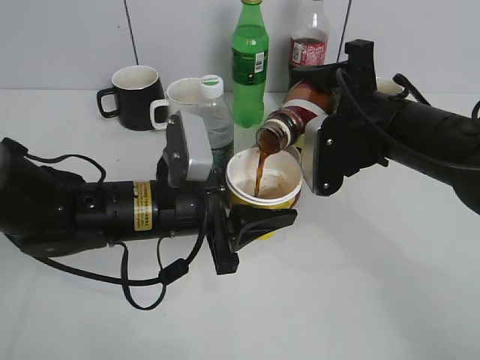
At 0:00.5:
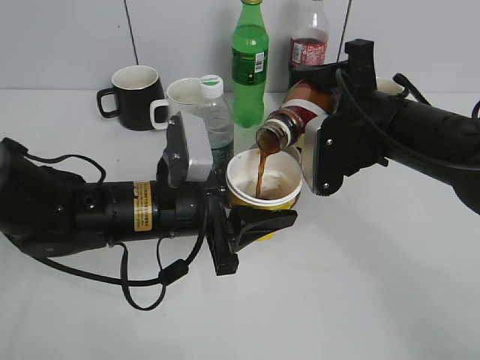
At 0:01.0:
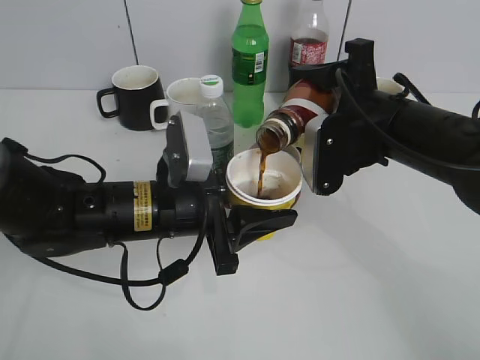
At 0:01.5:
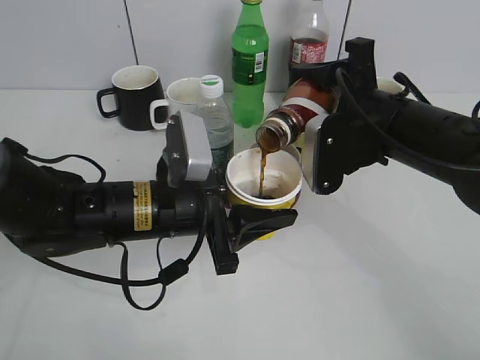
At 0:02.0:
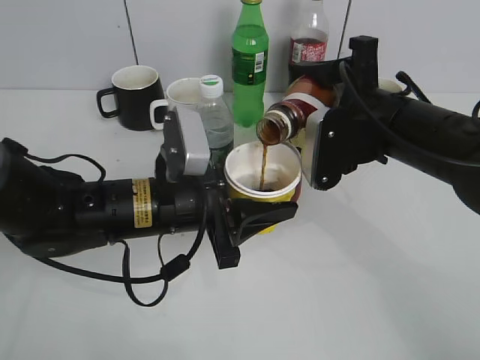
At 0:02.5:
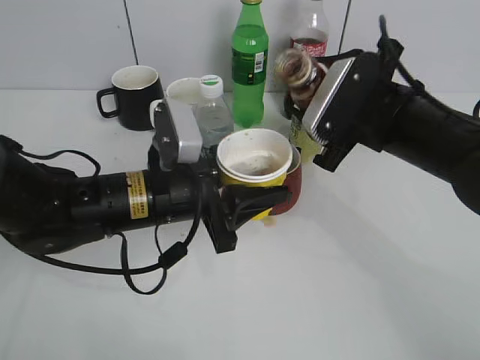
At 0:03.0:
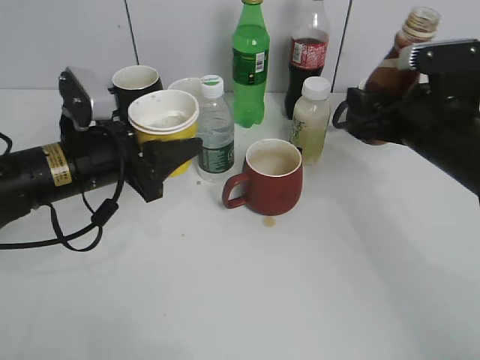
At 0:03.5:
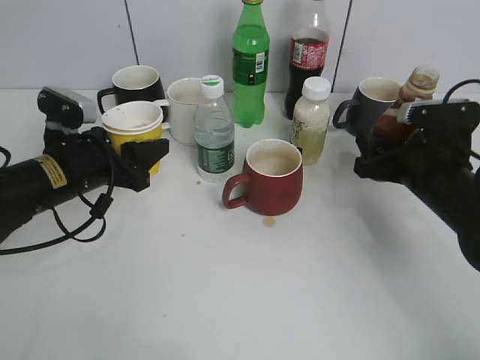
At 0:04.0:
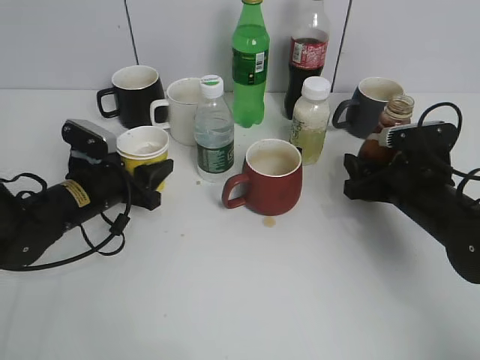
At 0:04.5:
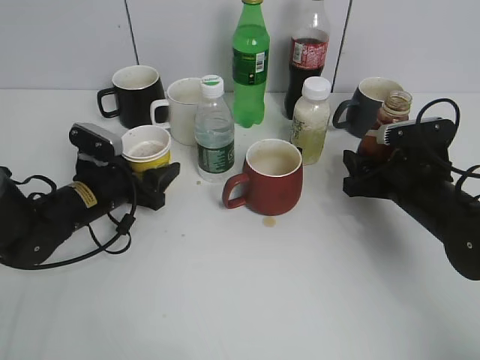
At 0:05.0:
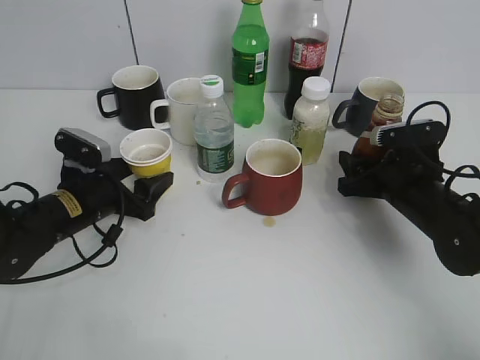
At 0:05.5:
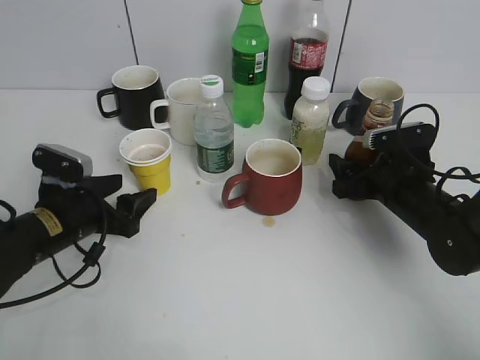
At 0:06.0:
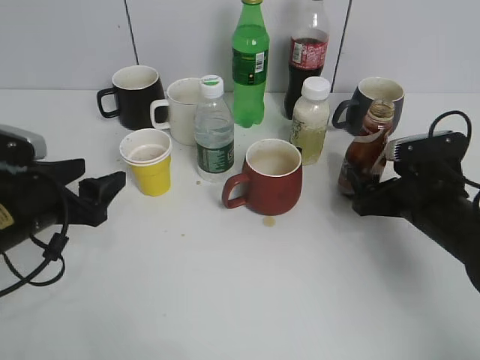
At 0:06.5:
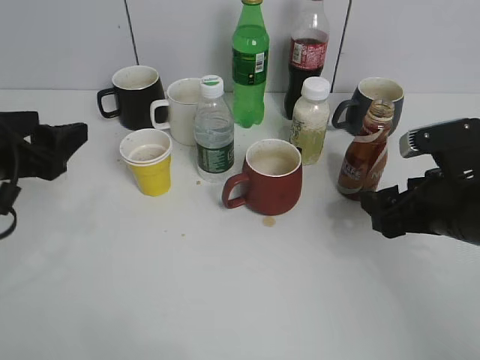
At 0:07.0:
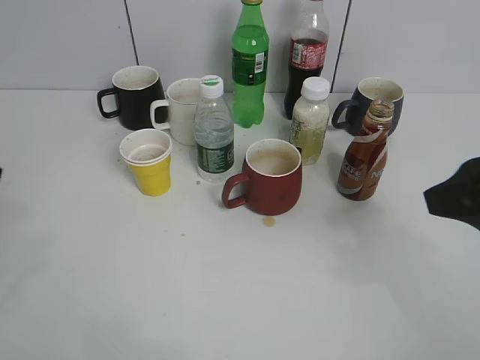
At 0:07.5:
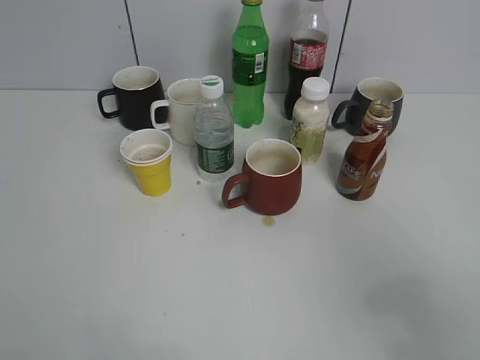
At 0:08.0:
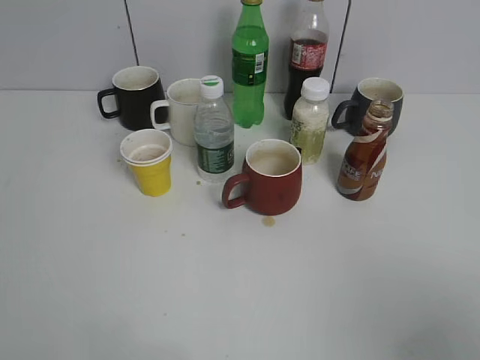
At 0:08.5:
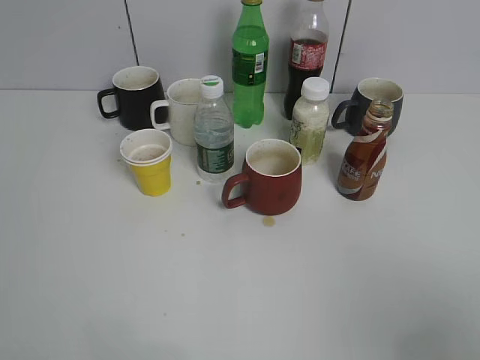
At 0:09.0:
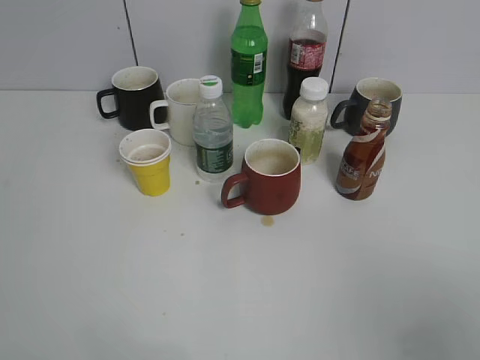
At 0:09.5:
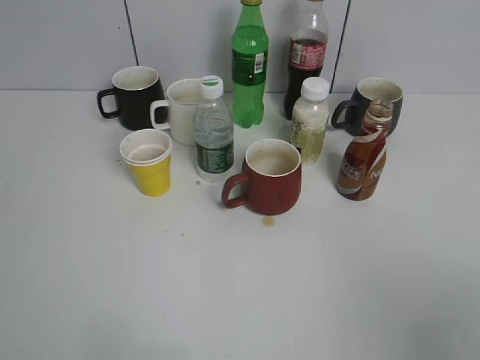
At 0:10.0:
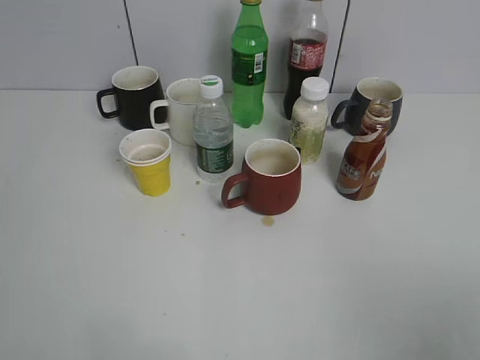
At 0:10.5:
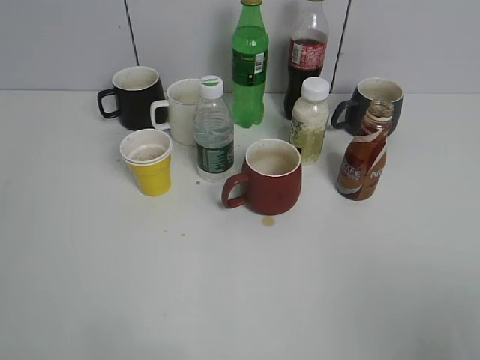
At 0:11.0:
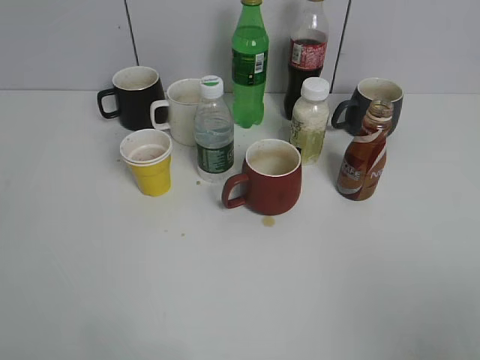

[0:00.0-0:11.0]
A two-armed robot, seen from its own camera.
Step, 0:00.0 to 0:02.5: Pour the coffee from bottle to cup with right gripper.
Step, 0:03.0 to 0:06.0: Place the coffee bottle on the table with right gripper.
0:00.0 to 0:02.0: Both grippers stay put.
0:02.0 to 0:03.5: The left gripper shifts approximately 15 cm to the left and forward, while the right gripper is displaced downward and to the right by some 10 cm.
0:03.5 to 0:05.5: The right gripper opens. The left gripper moves downward, roughly 5 cm, and opens up.
0:05.5 to 0:07.5: The left gripper heads upward and backward, covering approximately 35 cm. The right gripper is displaced backward and upward by roughly 35 cm, and closes.
0:07.5 to 0:09.0: The right gripper moves approximately 5 cm.
0:09.0 to 0:11.0: The grippers make only small movements.

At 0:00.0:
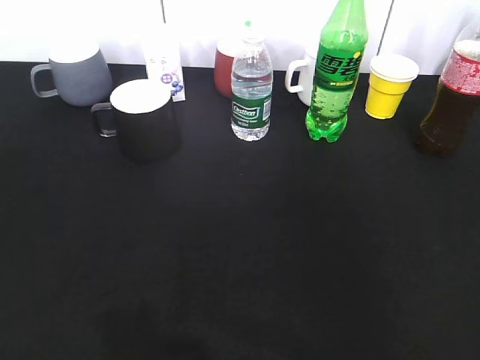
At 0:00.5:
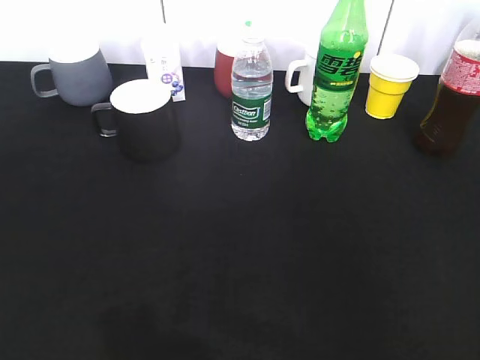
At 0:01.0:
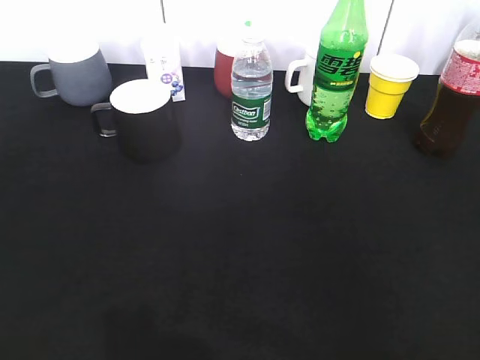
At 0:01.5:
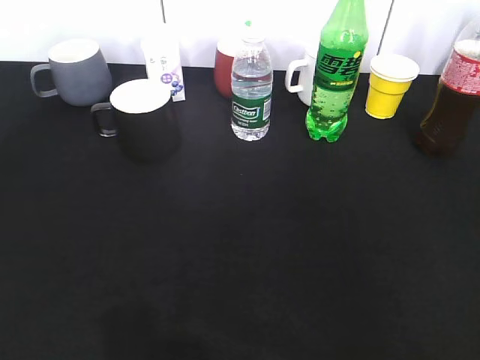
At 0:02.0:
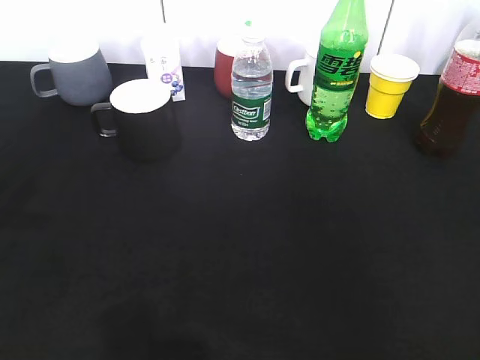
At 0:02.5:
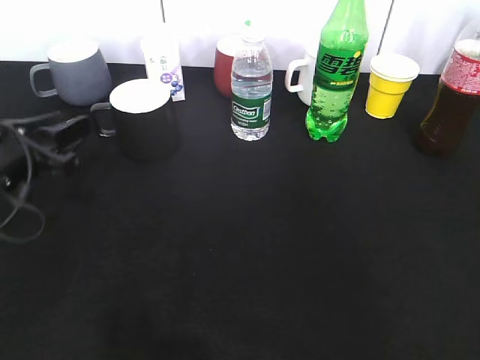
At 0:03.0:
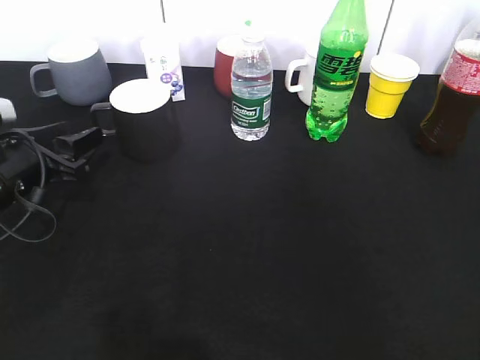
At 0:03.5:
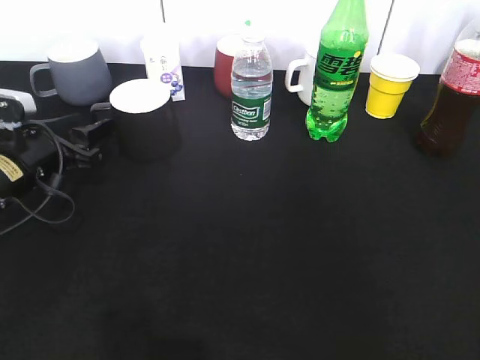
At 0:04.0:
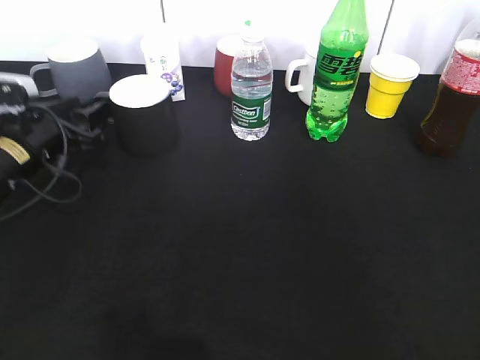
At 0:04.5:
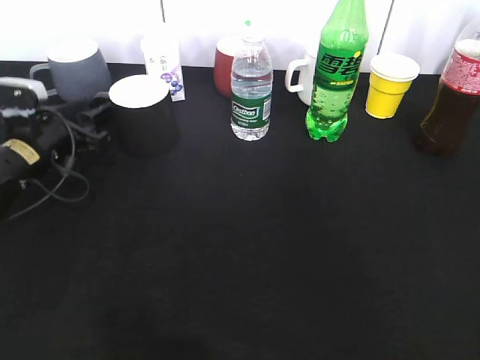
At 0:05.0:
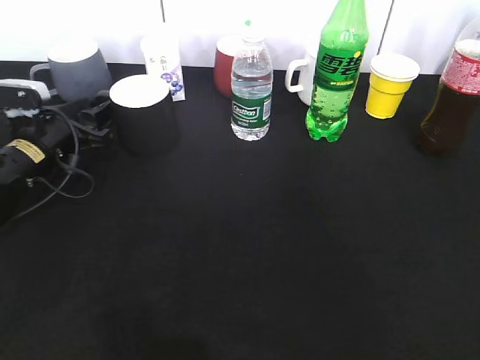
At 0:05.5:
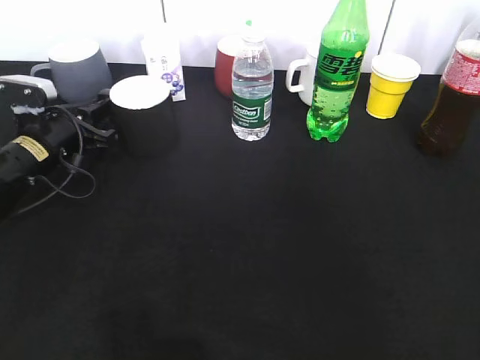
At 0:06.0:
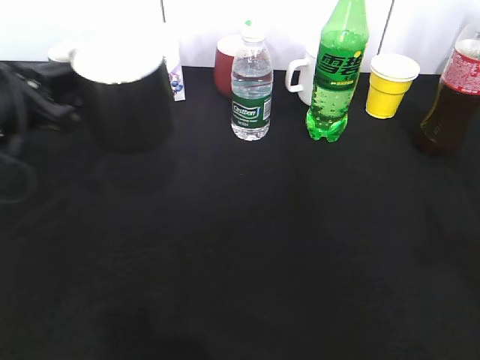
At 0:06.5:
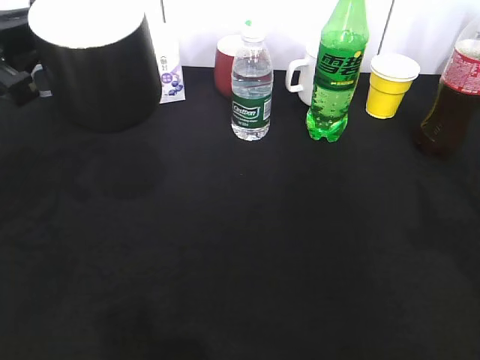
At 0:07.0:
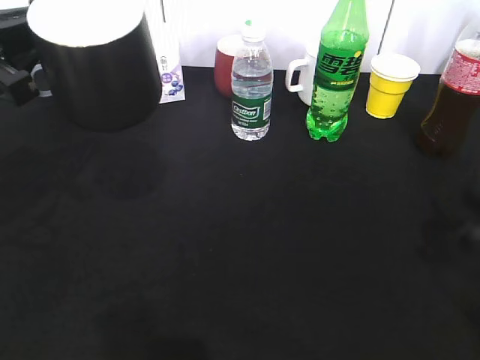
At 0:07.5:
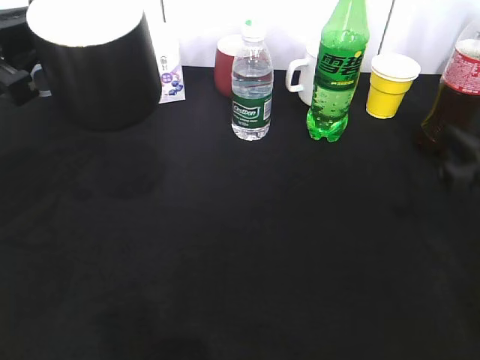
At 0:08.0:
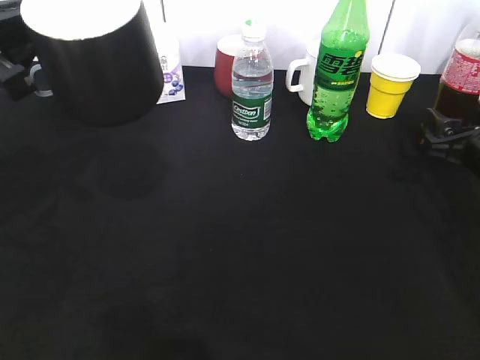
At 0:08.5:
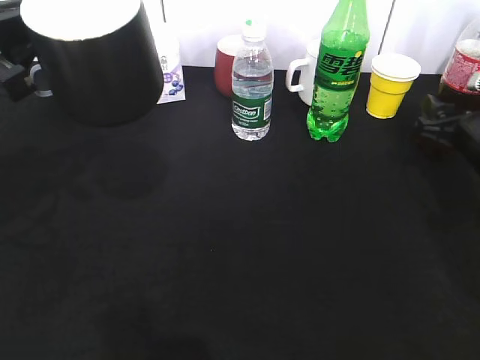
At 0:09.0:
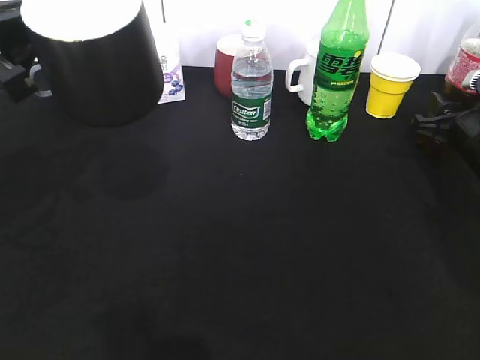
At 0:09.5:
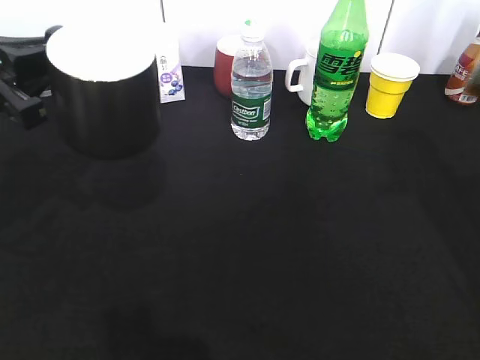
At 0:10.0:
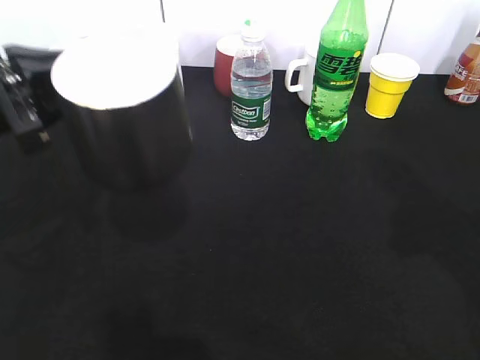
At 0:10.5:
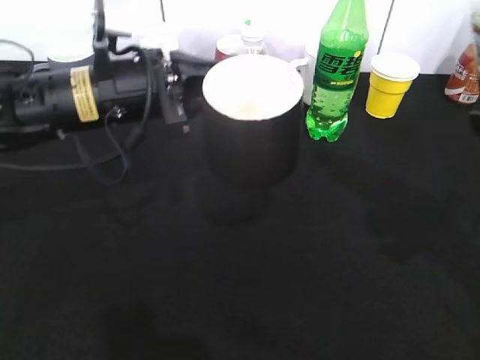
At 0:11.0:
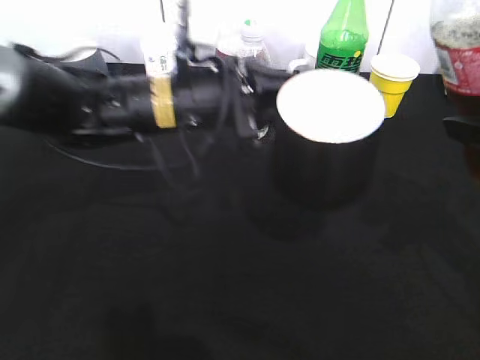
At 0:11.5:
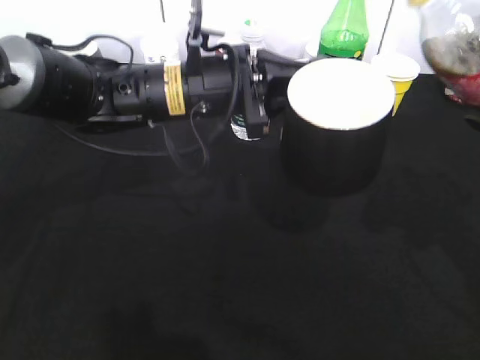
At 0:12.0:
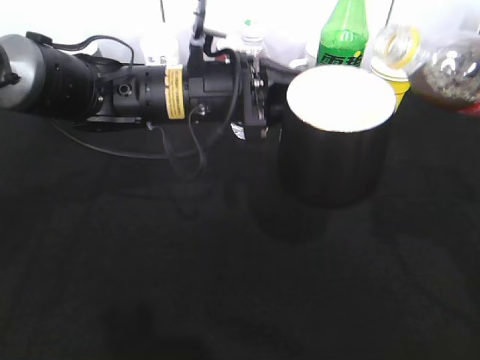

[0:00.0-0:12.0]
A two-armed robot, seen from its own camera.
Step, 0:00.0 to 0:05.0: Grasp the black cup with left gripper.
Step, 0:06.5 to 0:08.5: Grasp the bottle with cola with right gripper.
0:02.0 to 0:04.0: The left gripper travels forward and downward by roughly 20 cm, and opens.
0:04.0 to 0:06.0: The left gripper moves upward and backward, roughly 10 cm, and closes up.
0:06.0 to 0:08.0: The right gripper moves downward and forward, approximately 30 cm, and closes, then reopens. Meanwhile the left gripper moves upward, approximately 5 cm.
0:08.0 to 0:10.0: The right gripper goes approximately 20 cm backward and upward, and closes up.
0:10.0 to 0:12.0: The left gripper is displaced to the right and forward by about 20 cm. The right gripper travels forward by about 5 cm.

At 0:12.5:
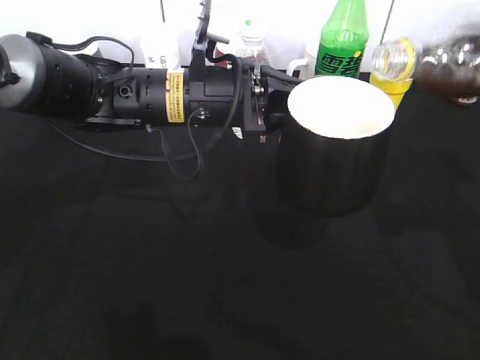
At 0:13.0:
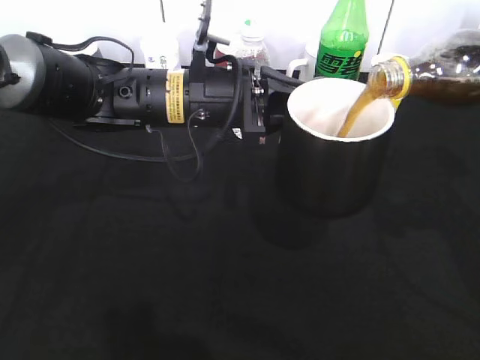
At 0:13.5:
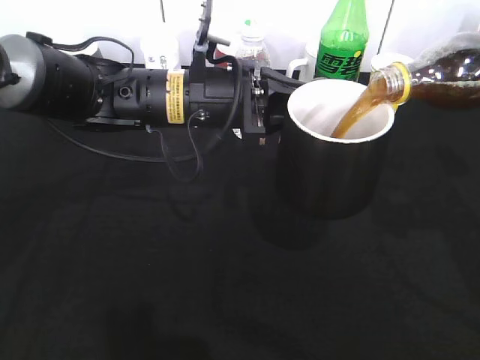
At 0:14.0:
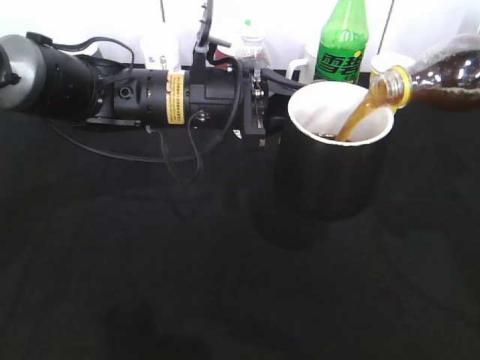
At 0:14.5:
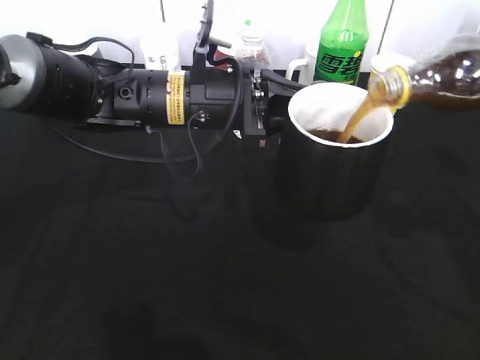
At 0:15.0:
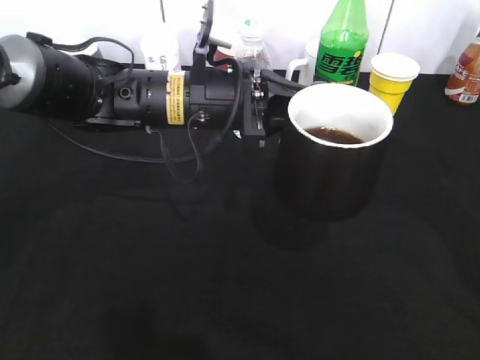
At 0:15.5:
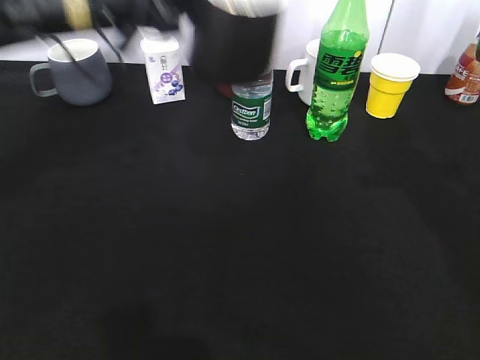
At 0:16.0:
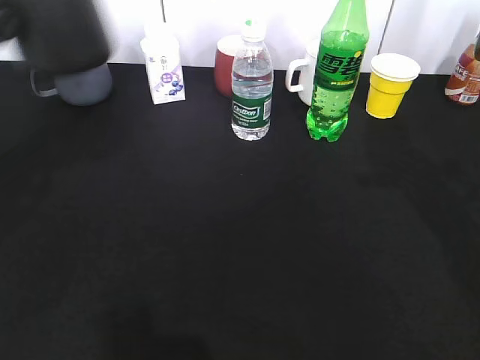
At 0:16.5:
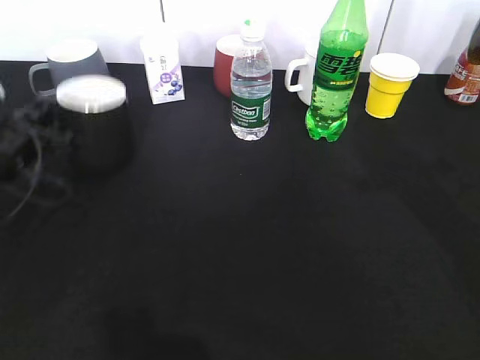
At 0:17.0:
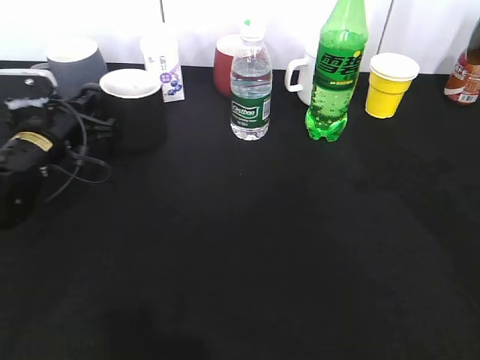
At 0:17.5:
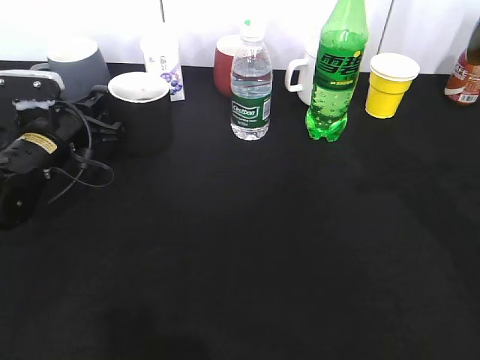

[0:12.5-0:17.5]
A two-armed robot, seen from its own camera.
Step, 0:12.5 to 0:14.5: Pour the cola from bottle to cup with right gripper.
0:15.0 to 0:17.5: The left gripper moves to the left and downward, roughly 20 cm.
